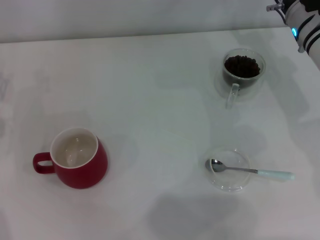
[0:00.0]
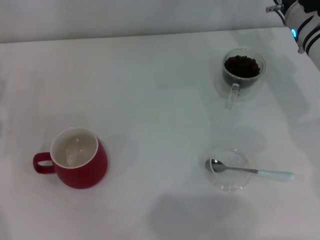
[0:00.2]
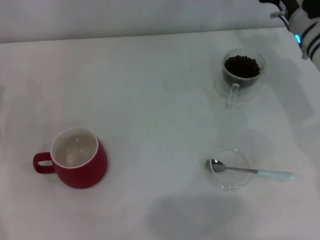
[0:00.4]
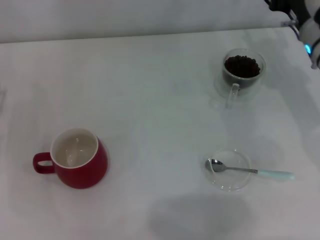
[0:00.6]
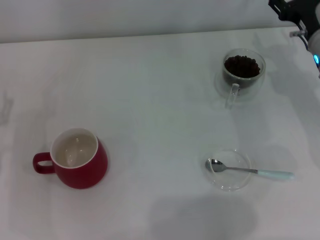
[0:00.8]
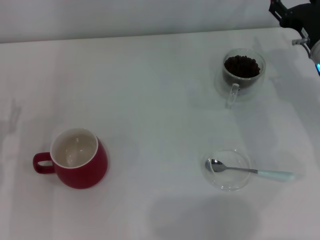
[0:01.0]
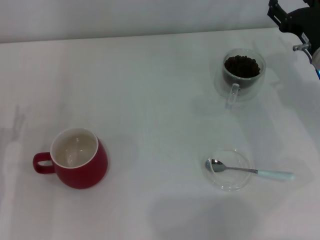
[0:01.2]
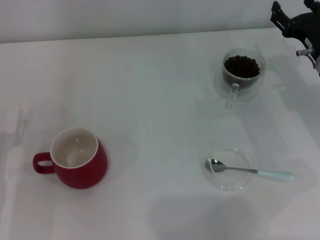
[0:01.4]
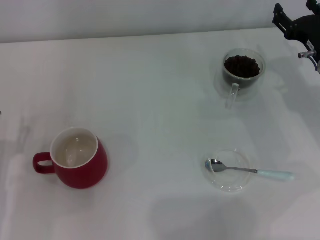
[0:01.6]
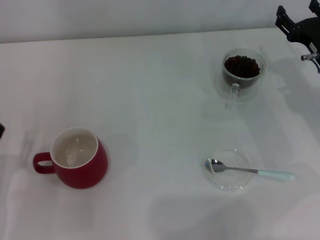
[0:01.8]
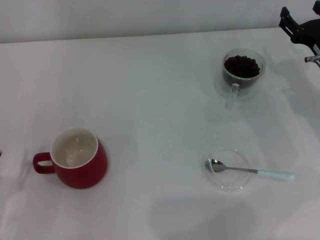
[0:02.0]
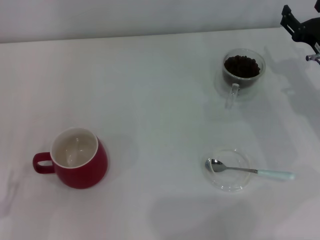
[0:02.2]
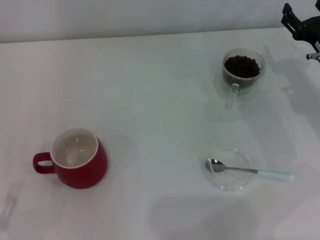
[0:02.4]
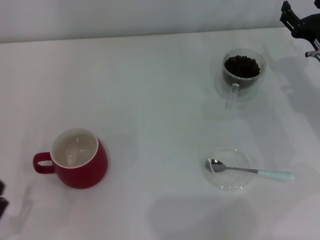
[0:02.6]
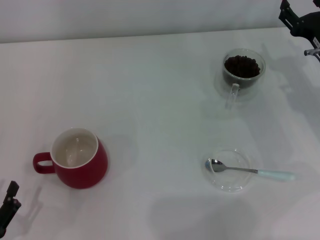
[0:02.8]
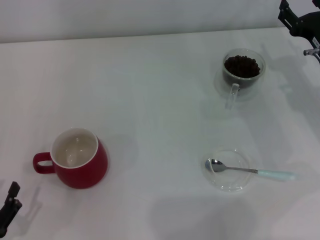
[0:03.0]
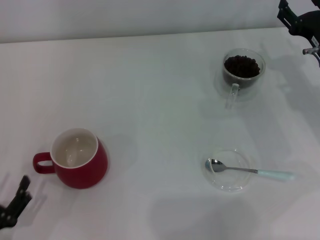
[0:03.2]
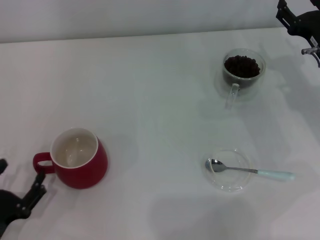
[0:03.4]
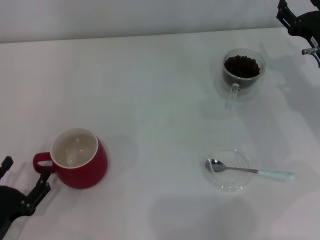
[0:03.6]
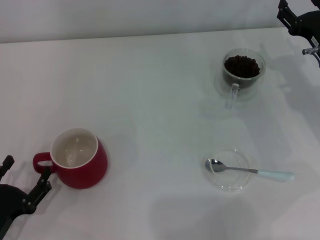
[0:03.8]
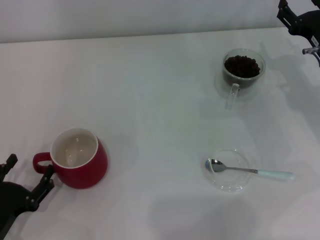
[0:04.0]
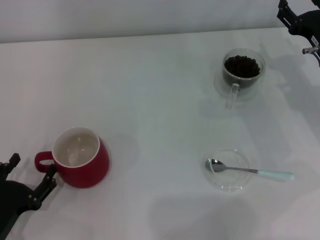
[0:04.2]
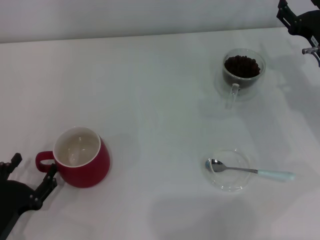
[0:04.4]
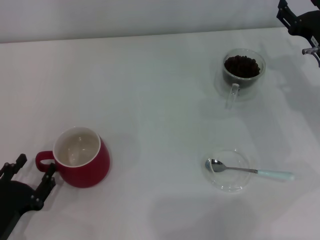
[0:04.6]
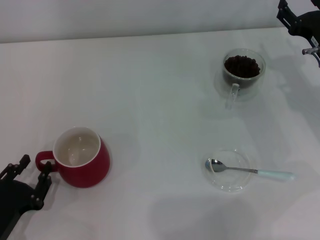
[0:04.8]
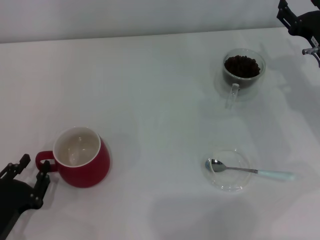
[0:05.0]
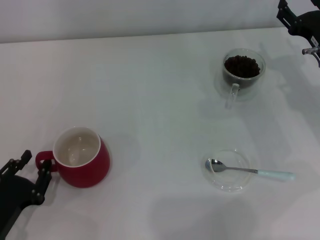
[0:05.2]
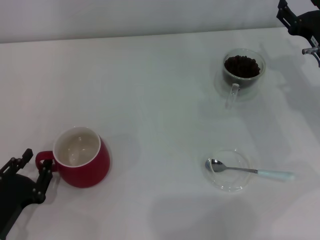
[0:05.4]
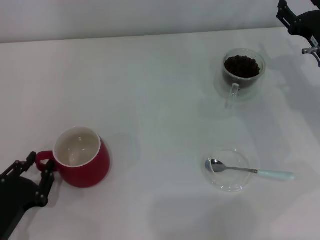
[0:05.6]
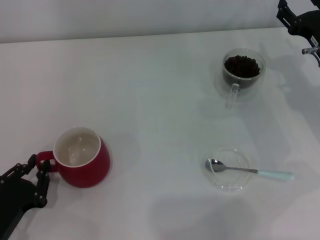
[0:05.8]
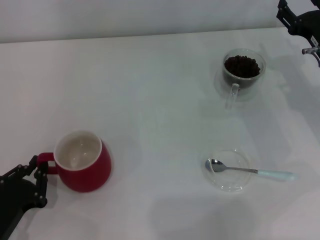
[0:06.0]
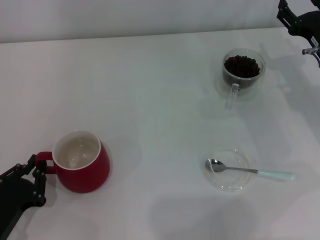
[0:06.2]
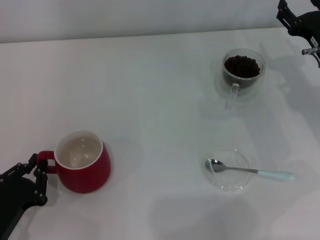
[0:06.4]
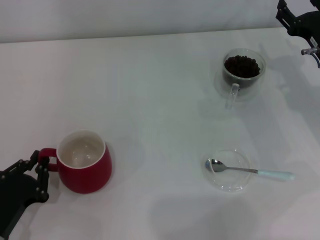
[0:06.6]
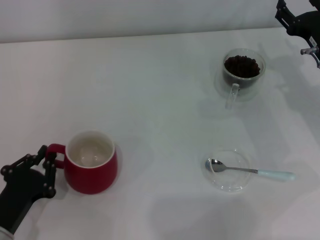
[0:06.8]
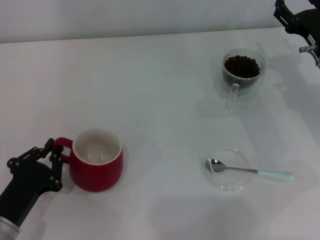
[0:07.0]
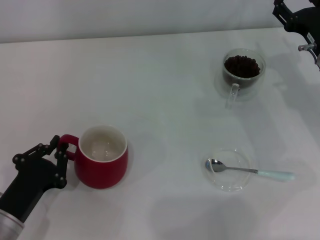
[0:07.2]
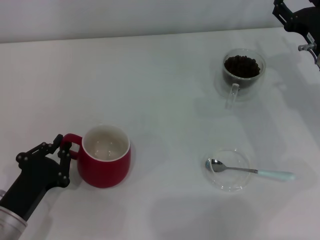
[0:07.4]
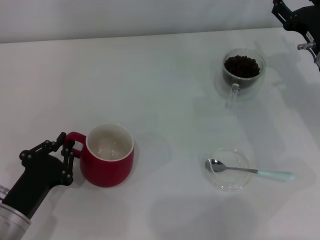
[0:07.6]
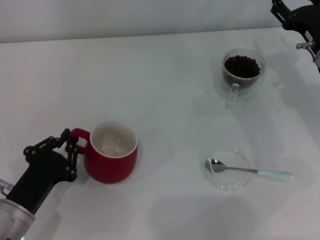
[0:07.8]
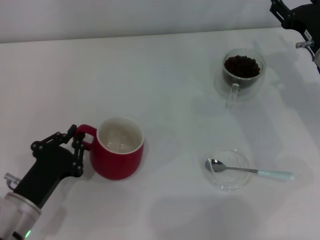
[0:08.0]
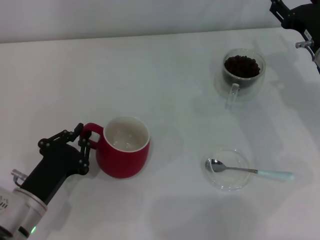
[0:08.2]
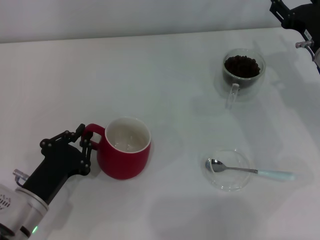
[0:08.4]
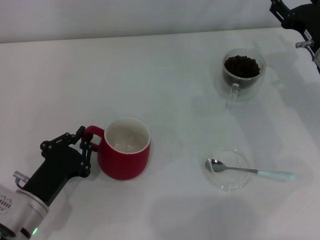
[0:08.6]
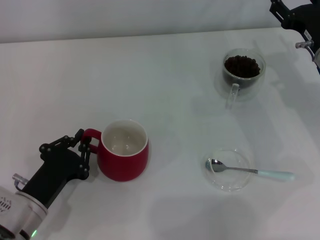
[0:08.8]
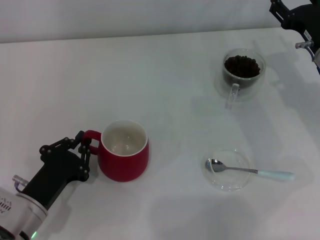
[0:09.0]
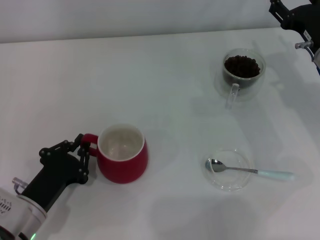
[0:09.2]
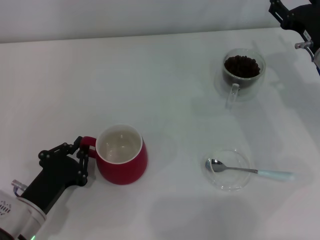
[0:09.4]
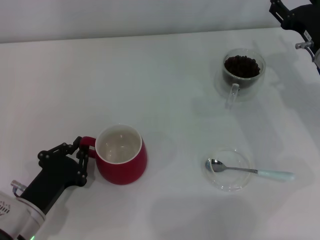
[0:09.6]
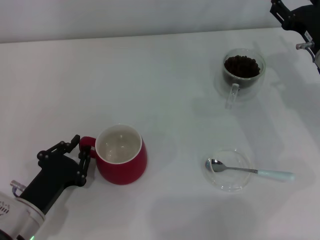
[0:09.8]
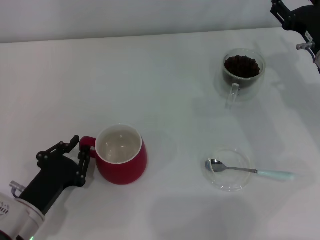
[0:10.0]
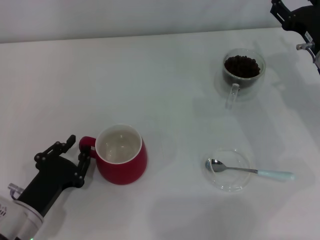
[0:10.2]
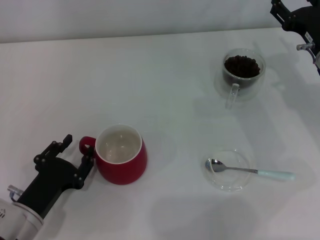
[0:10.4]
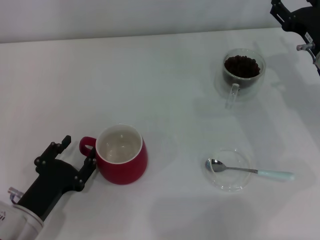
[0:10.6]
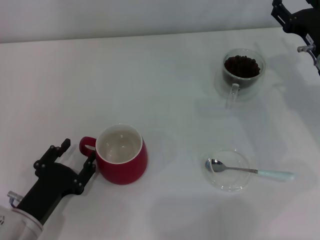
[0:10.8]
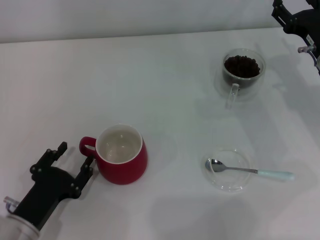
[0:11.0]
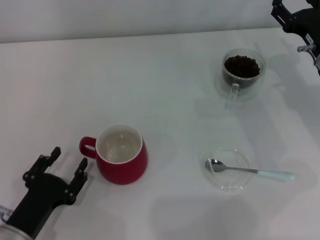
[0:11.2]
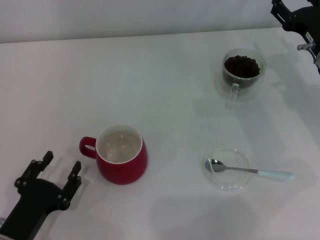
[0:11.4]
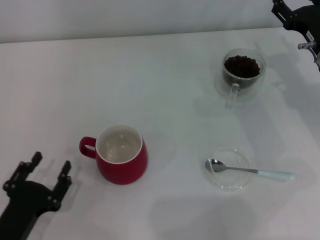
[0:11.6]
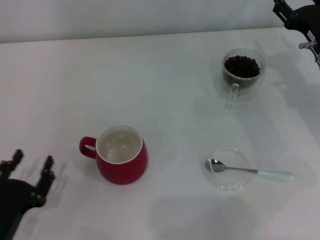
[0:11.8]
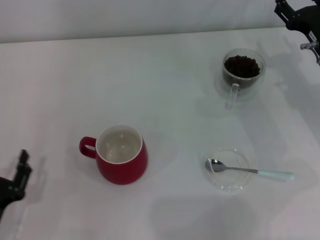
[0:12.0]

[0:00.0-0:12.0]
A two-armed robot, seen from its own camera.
Task of the whole recording: Use a blue spoon to take out the coffee beans from the glass and pour them into the red cup.
Step, 0:00.0 to 0:11.2: Move the cup to the center of view with the left gripper.
0:00.0 to 0:01.6: The right gripper goes about 5 cm backward.
0:01.6 to 0:03.0: The left gripper is displaced backward by some 10 cm.
0:03.0 to 0:04.4: The left gripper heads forward, covering about 5 cm.
0:04.4 to 0:06.0: The left gripper closes up.
0:06.0 to 0:07.6: There are only small adjustments of the grippers.
0:07.6 to 0:09.0: There are only small adjustments of the grippers.
0:09.0 to 0:10.4: Neither gripper changes place.
0:10.4 to 0:12.0: The left gripper ends up approximately 5 cm from where it was, and opens its fingers.

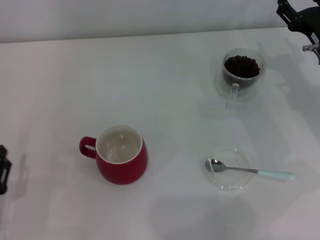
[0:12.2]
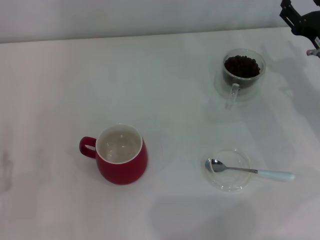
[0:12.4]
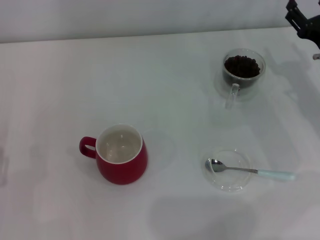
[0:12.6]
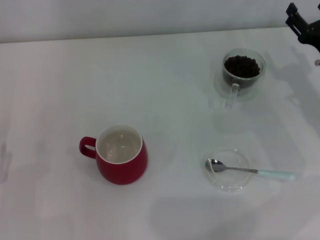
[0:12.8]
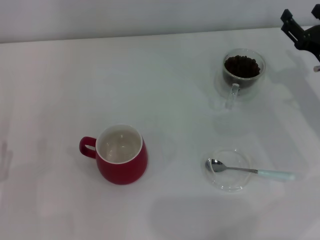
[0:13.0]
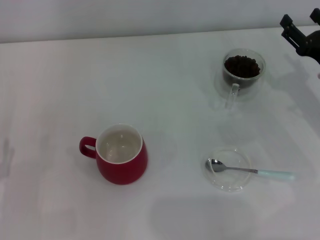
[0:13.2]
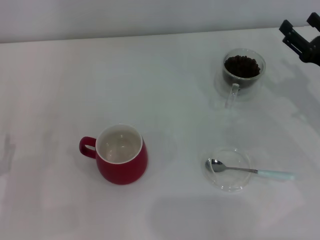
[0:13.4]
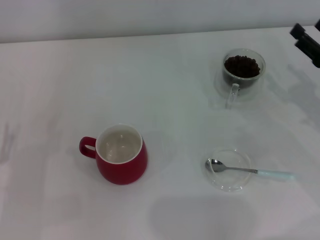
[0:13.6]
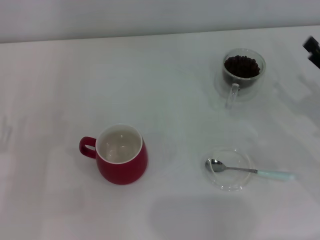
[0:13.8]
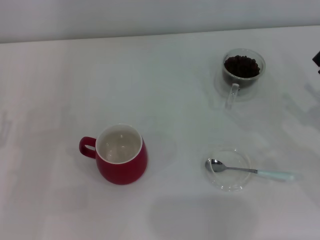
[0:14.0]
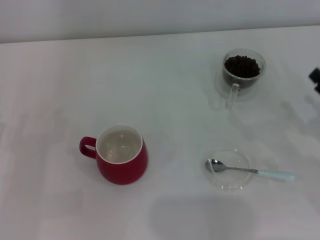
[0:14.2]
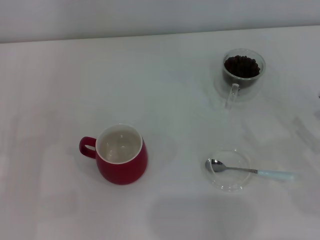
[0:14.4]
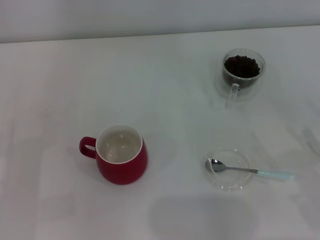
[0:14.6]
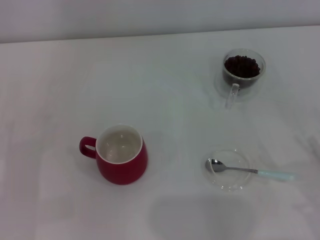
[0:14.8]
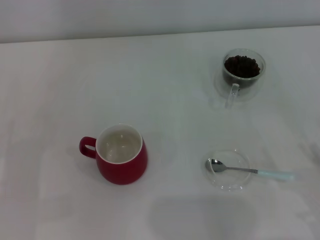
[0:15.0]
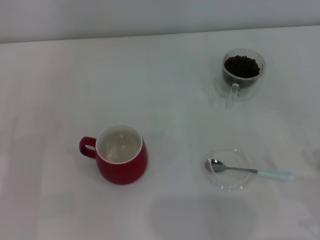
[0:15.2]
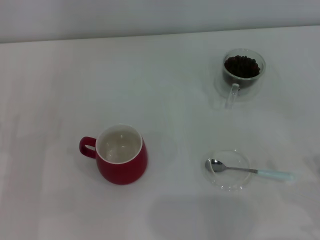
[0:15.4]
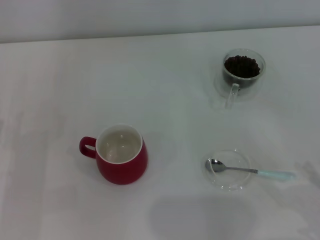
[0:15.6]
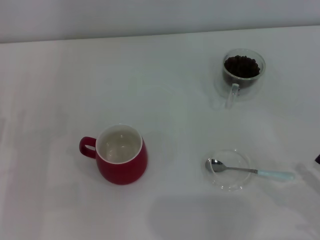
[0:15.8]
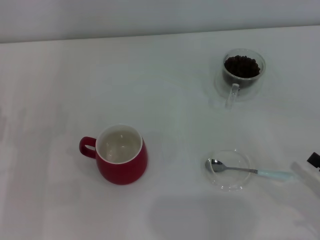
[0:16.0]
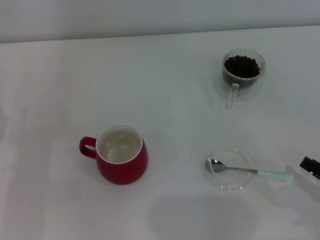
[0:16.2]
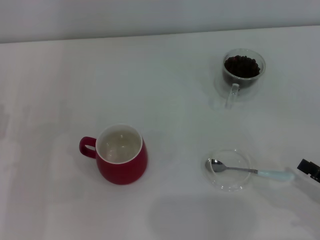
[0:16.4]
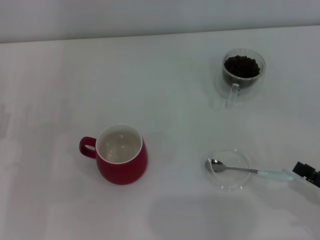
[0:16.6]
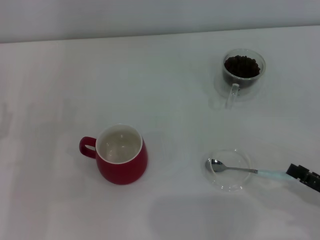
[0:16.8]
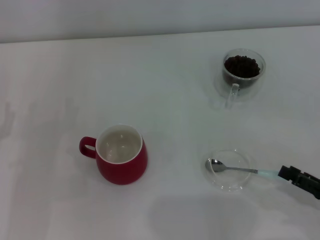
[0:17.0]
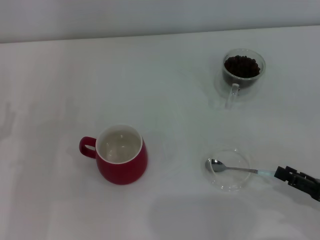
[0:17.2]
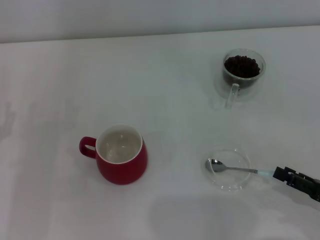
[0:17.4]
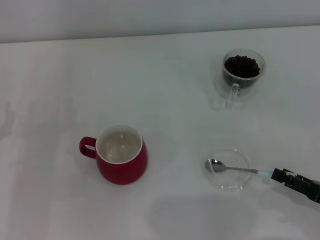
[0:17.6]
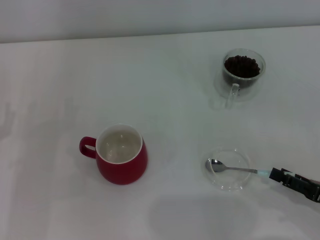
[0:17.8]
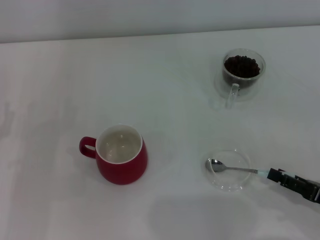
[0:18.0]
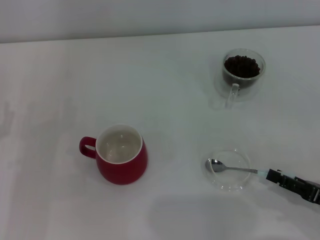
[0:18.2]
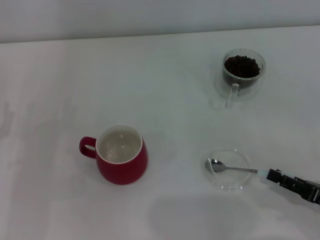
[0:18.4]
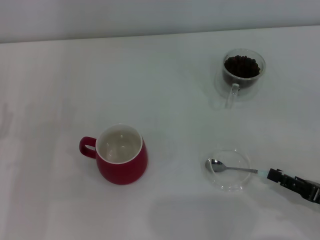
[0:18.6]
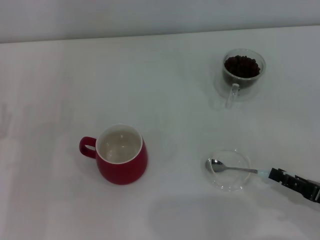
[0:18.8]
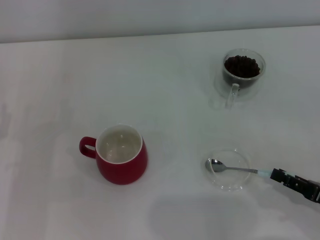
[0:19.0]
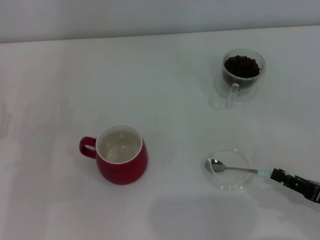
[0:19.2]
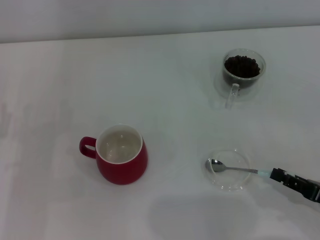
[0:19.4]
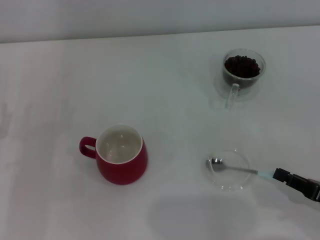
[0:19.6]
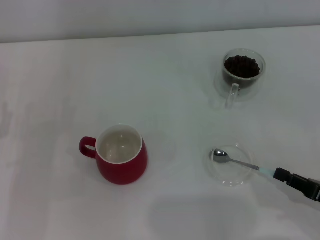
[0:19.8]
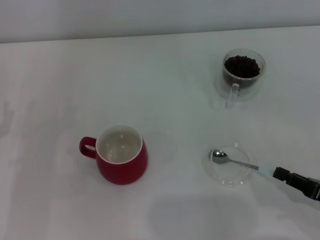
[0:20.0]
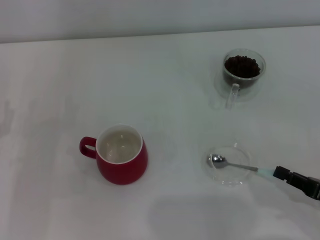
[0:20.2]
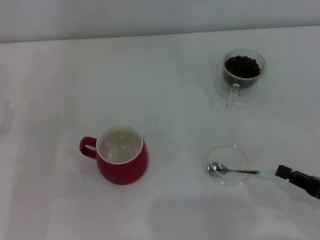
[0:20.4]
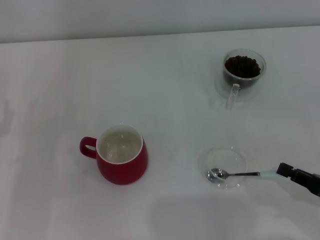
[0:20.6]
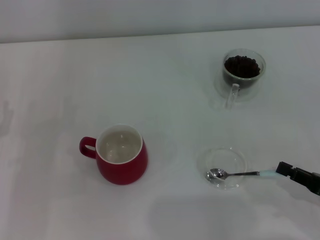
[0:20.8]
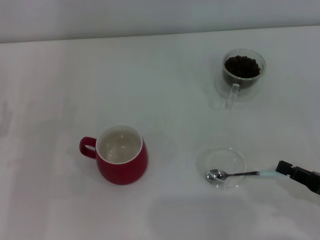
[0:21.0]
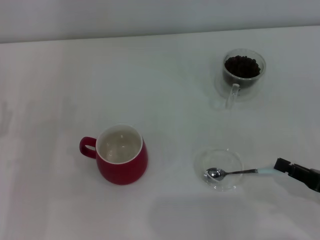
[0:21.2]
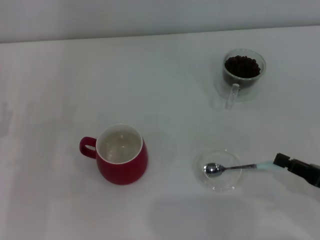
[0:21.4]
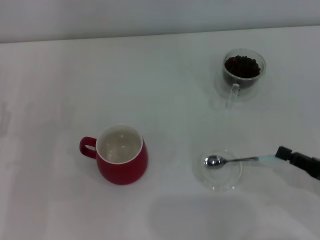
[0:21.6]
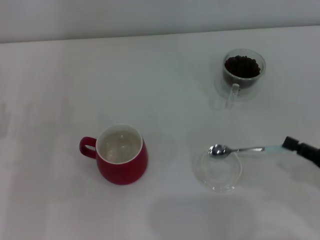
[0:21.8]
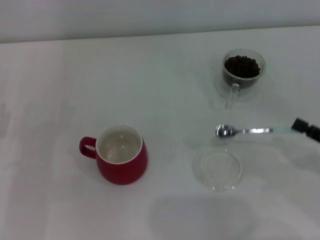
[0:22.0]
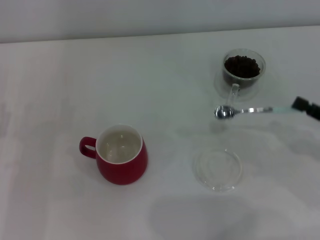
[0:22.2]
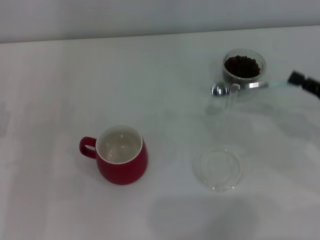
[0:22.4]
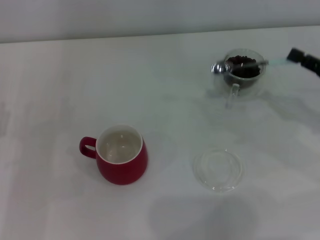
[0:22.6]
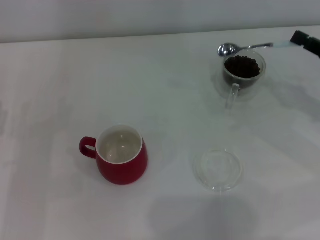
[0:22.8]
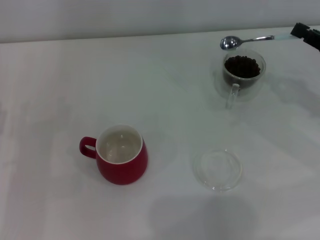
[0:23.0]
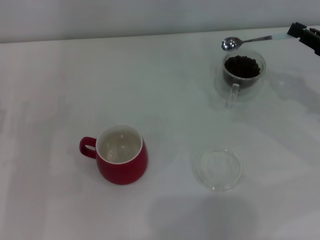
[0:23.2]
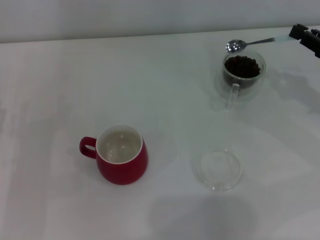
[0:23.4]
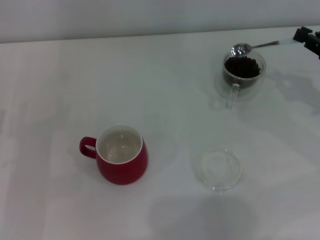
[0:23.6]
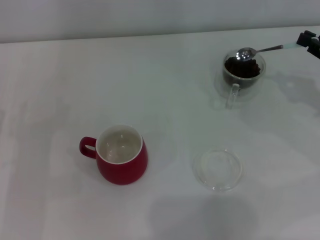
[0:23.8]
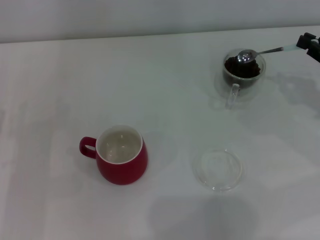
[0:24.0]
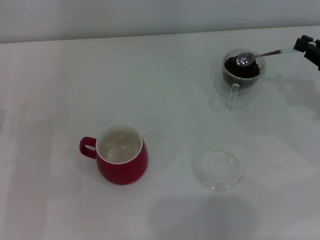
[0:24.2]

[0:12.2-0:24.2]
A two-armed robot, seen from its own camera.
Task of the whole recording: Use a blue spoon to take out the coffee beans from the glass and pour them into the red cup.
Step, 0:12.2 to 0:21.8: Pick up the spoon with the right gripper.
0:12.2 to 0:13.8: The left gripper is displaced forward by about 5 cm. The right gripper is displaced backward by some 10 cm.
0:13.8 to 0:15.2: The right gripper moves backward, roughly 15 cm.
0:16.6 to 0:18.2: There are only small adjustments of the grippers.
0:18.2 to 0:19.8: The right gripper closes its fingers.
0:19.8 to 0:21.2: The grippers make only small movements.
0:21.2 to 0:22.6: The right gripper travels forward and upward by about 15 cm.
